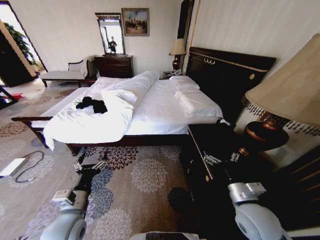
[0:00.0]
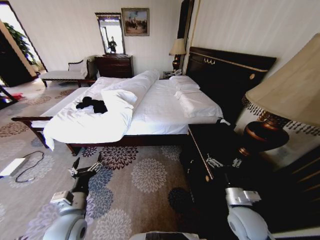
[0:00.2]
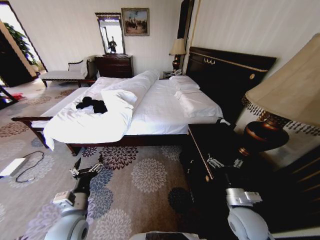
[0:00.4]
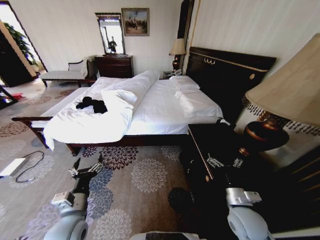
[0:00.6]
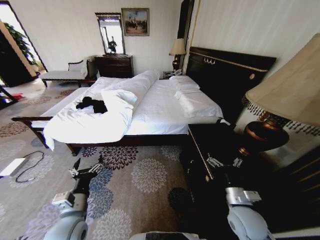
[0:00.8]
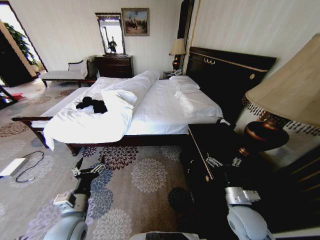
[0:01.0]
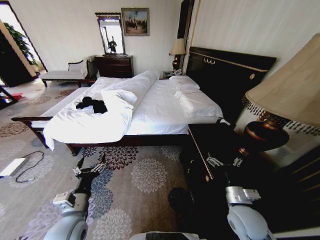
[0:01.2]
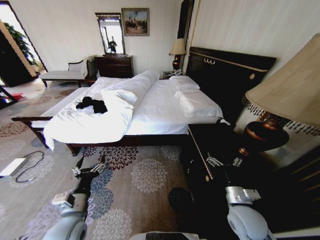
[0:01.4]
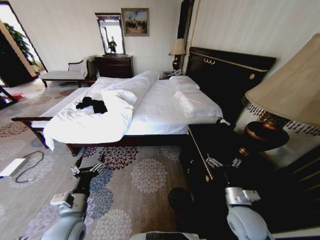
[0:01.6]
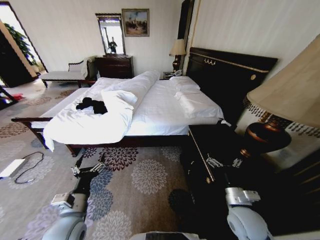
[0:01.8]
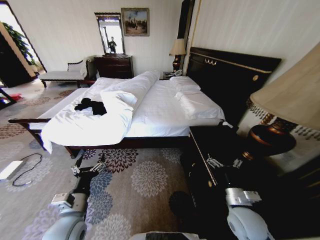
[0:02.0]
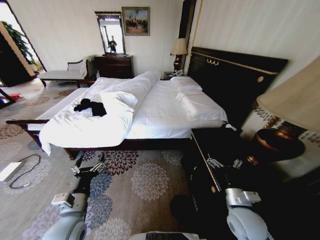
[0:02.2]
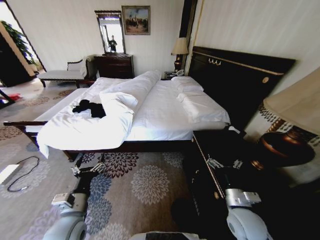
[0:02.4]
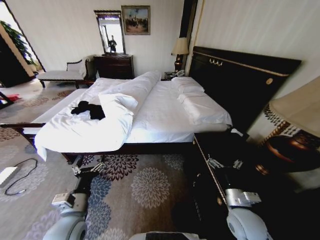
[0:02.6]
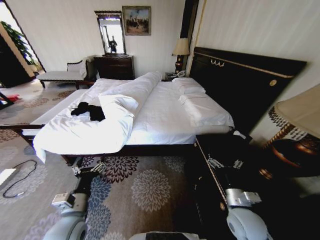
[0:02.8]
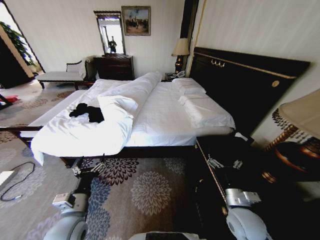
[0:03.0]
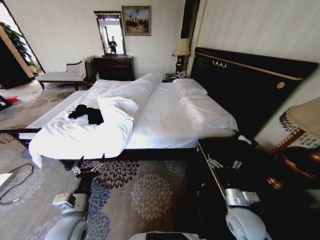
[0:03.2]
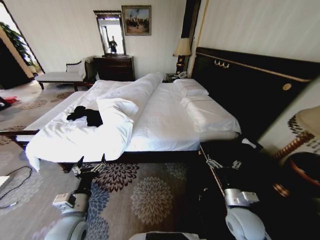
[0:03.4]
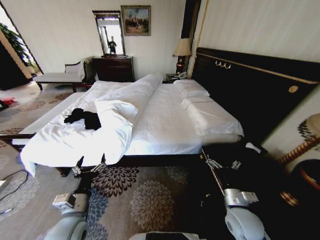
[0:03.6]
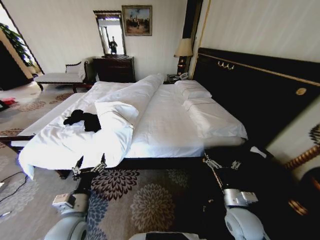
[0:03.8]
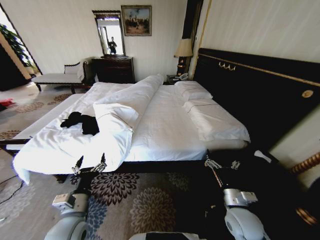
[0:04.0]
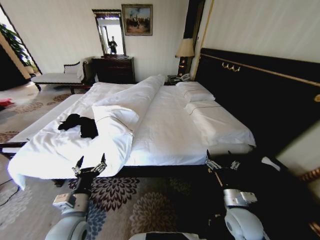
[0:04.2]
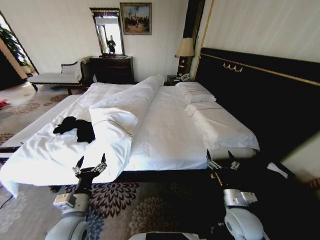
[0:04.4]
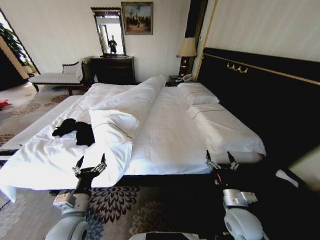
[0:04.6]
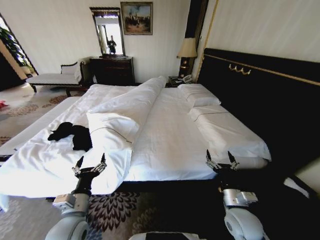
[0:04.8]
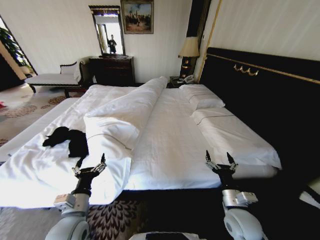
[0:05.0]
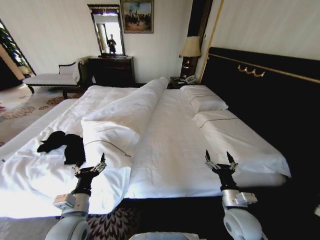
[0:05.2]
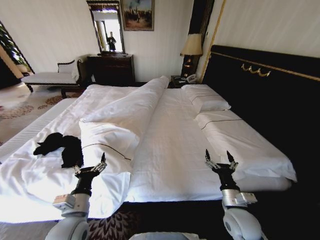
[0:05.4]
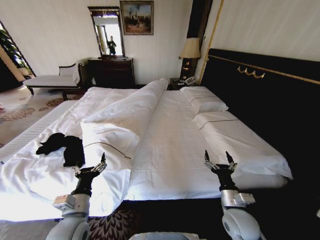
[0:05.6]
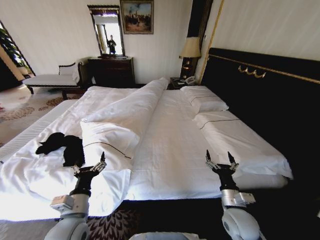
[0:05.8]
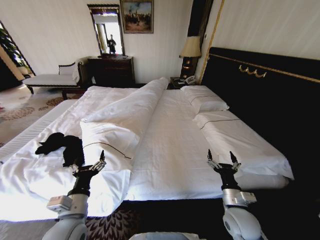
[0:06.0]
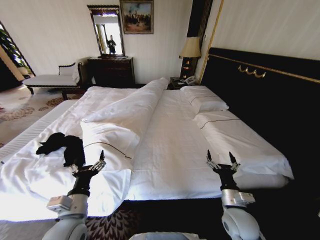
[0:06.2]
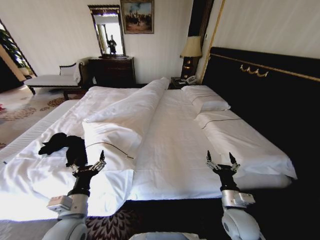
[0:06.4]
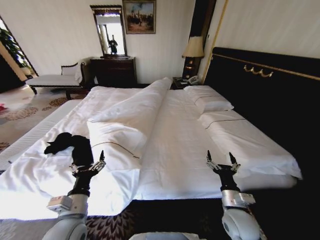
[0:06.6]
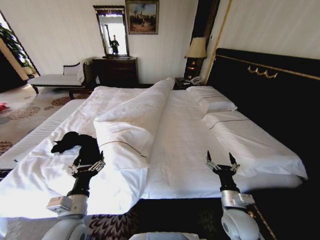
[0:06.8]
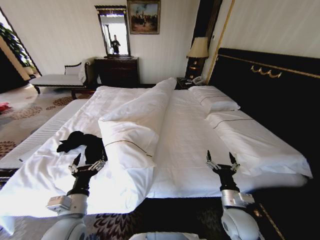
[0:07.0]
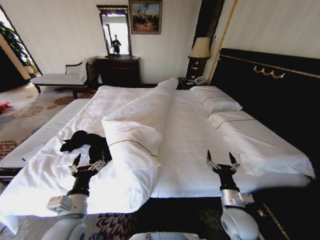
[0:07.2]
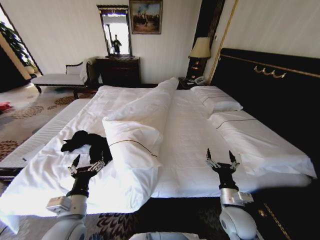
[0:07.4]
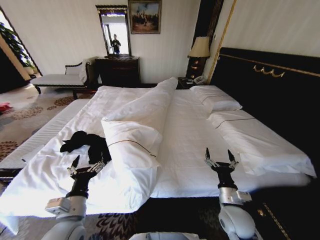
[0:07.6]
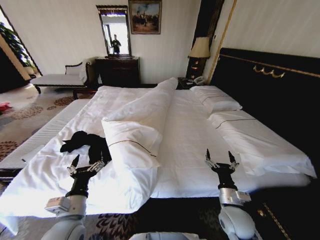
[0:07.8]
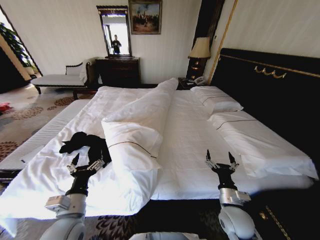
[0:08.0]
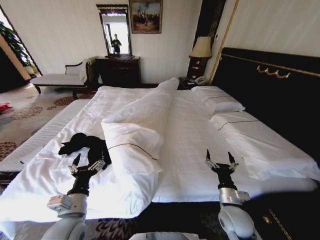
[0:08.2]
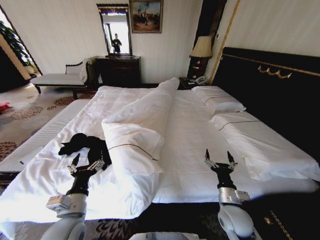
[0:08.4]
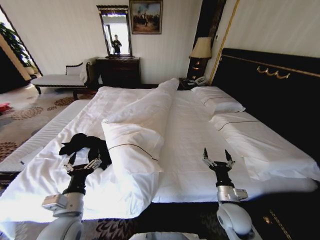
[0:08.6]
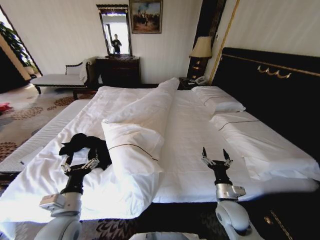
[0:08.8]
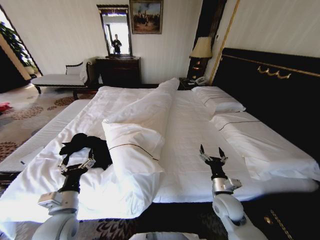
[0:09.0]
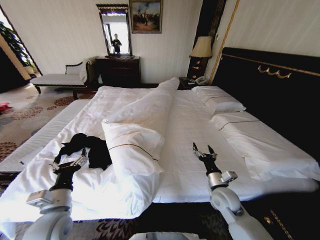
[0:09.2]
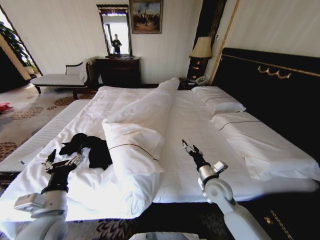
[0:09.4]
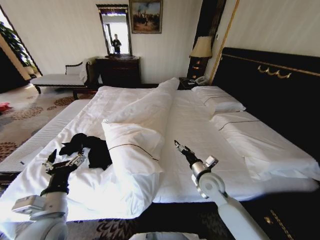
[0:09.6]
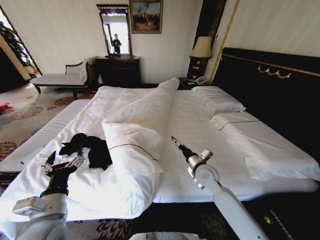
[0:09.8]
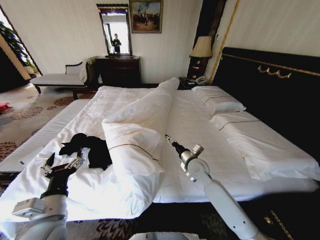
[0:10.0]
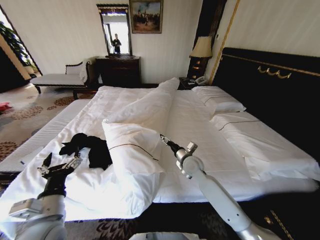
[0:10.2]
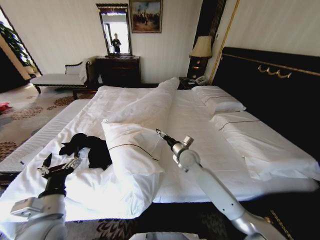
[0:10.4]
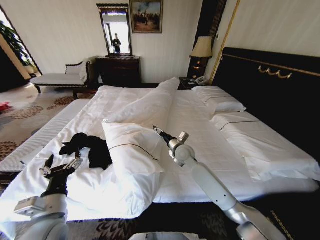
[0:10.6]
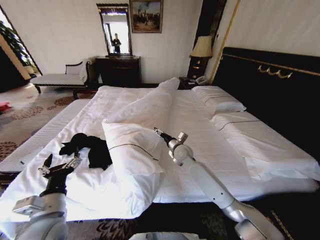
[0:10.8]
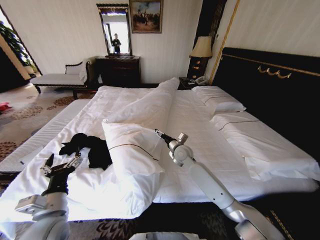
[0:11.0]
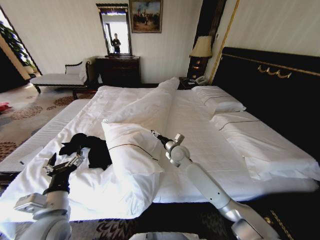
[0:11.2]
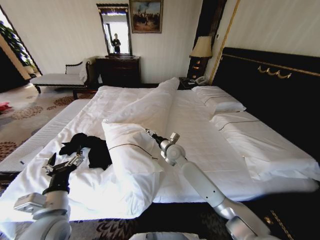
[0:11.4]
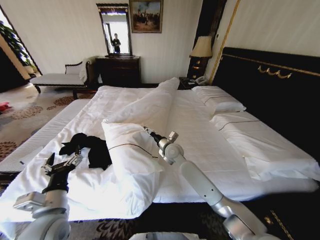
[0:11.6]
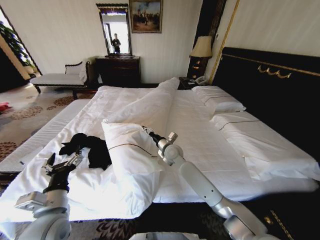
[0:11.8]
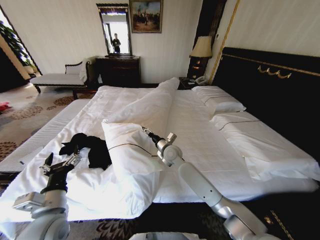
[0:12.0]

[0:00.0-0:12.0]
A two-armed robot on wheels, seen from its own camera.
Task of the whole recording: Fold the clothes on the bed.
0:07.6 to 0:09.0: There are only small adjustments of the grippers.
0:09.0 to 0:10.4: The right gripper is displaced forward and to the left by some 20 cm.
0:10.4 to 0:12.0: The right gripper moves to the left, roughly 10 cm.

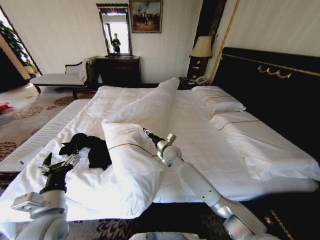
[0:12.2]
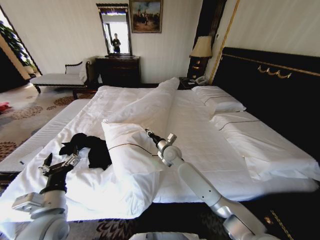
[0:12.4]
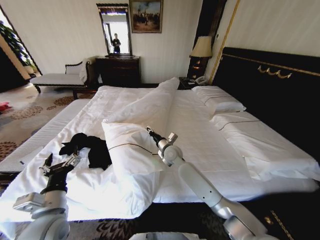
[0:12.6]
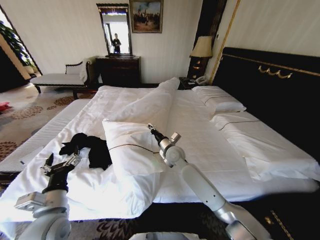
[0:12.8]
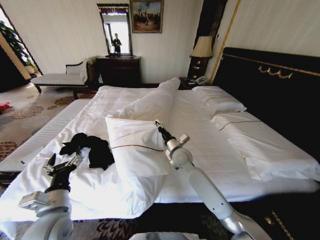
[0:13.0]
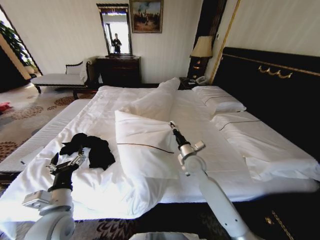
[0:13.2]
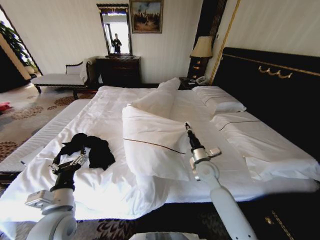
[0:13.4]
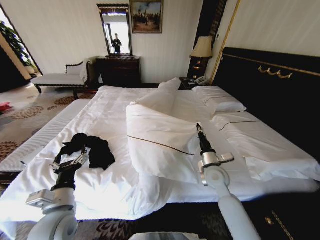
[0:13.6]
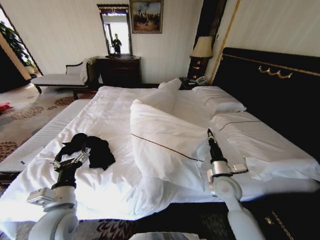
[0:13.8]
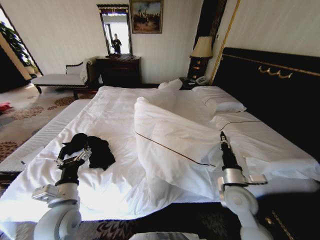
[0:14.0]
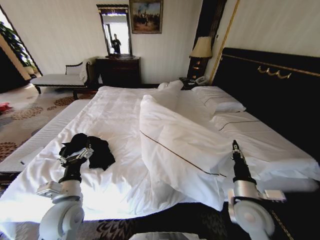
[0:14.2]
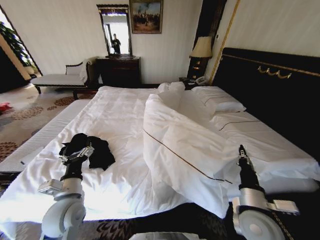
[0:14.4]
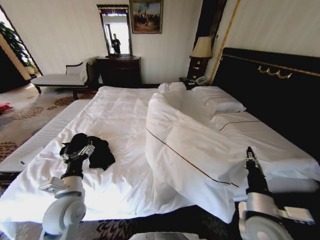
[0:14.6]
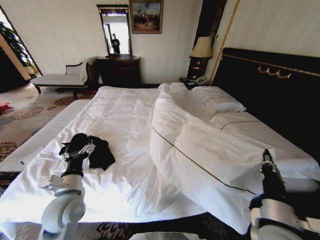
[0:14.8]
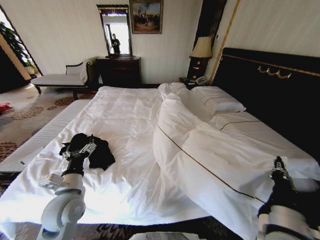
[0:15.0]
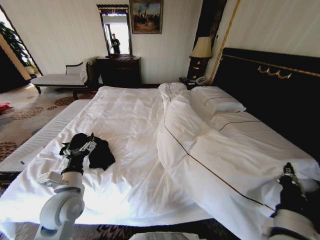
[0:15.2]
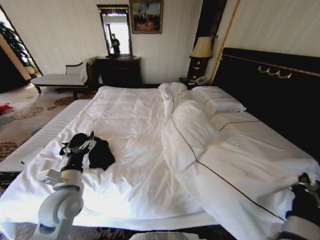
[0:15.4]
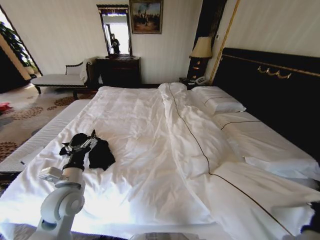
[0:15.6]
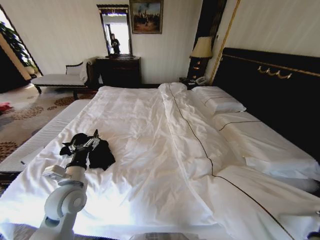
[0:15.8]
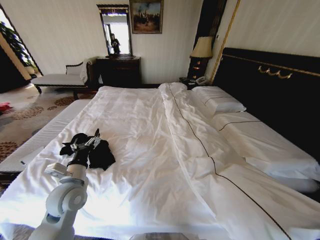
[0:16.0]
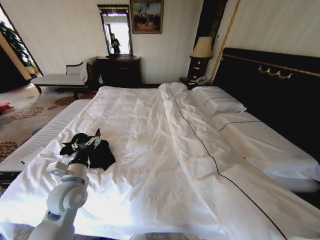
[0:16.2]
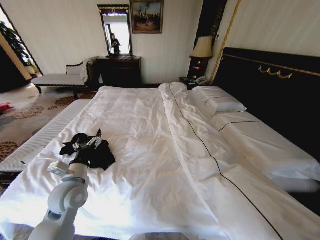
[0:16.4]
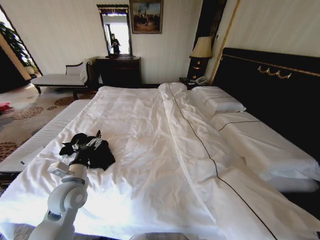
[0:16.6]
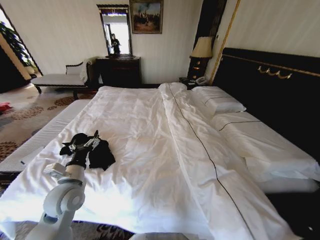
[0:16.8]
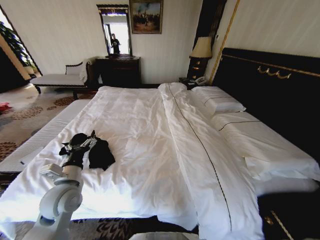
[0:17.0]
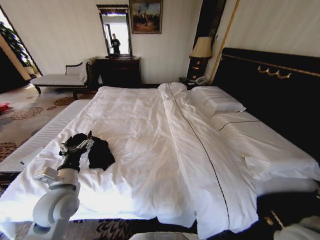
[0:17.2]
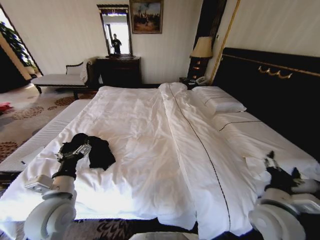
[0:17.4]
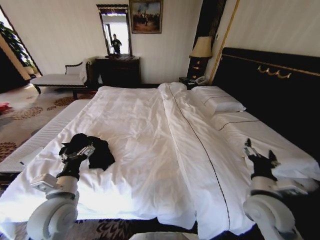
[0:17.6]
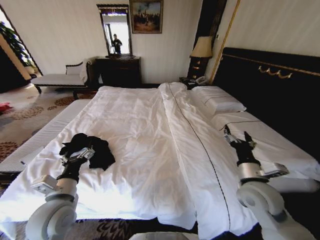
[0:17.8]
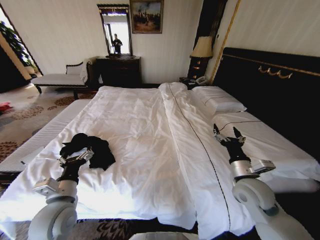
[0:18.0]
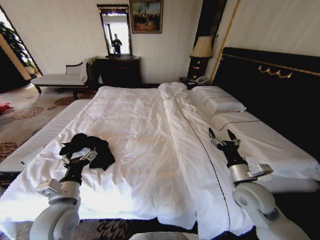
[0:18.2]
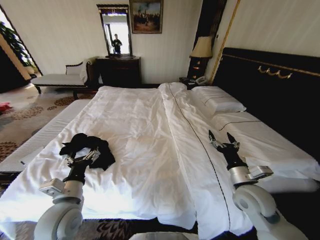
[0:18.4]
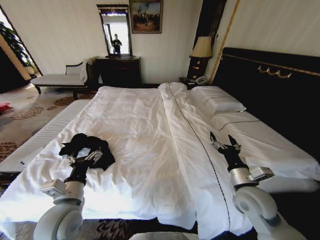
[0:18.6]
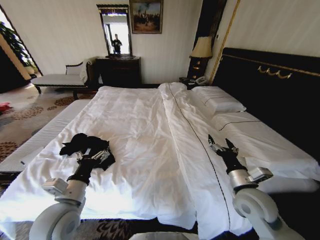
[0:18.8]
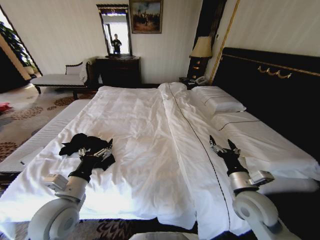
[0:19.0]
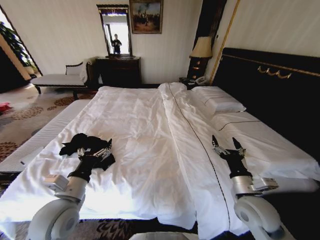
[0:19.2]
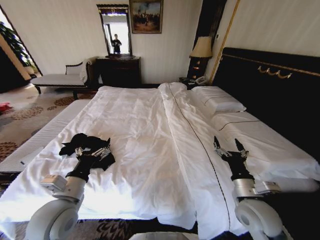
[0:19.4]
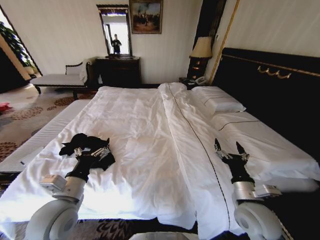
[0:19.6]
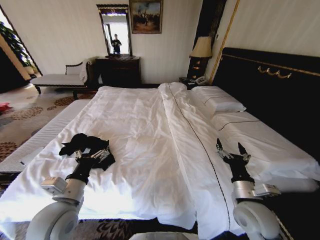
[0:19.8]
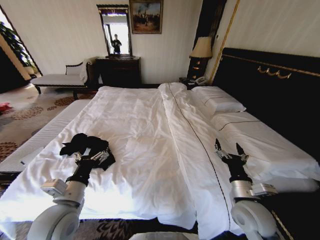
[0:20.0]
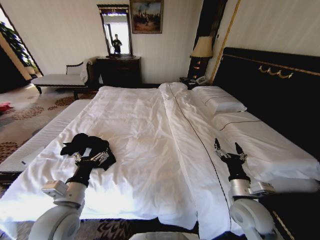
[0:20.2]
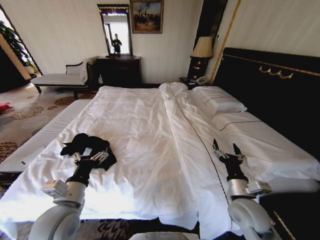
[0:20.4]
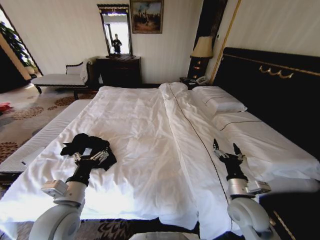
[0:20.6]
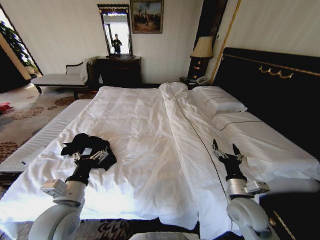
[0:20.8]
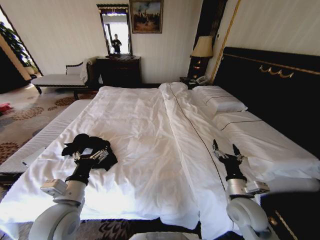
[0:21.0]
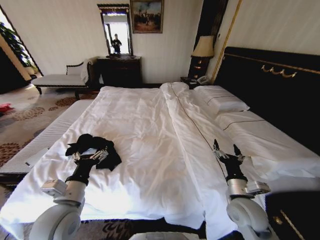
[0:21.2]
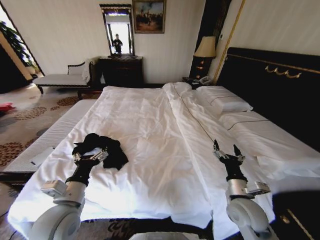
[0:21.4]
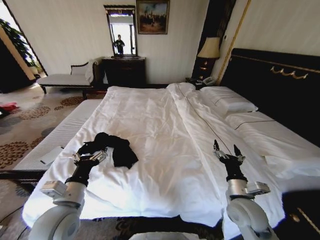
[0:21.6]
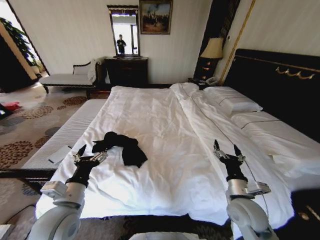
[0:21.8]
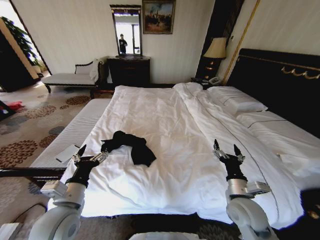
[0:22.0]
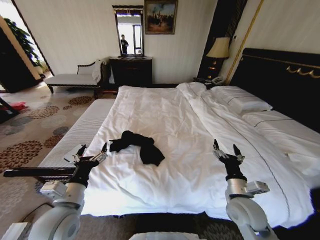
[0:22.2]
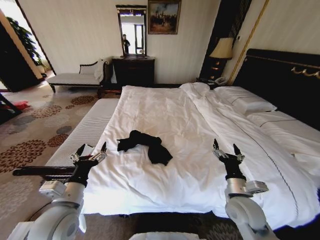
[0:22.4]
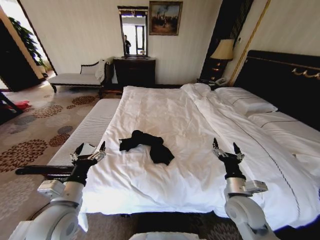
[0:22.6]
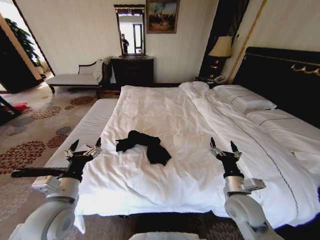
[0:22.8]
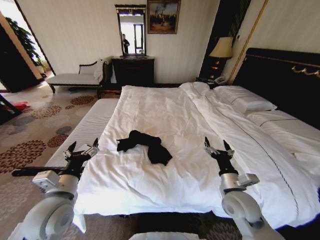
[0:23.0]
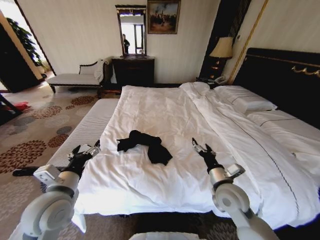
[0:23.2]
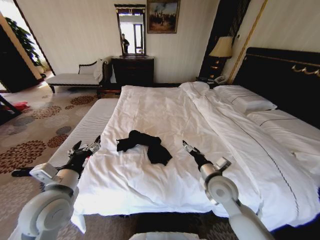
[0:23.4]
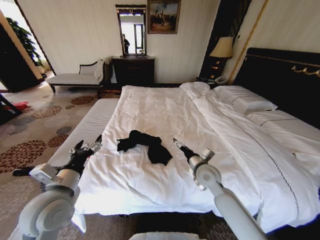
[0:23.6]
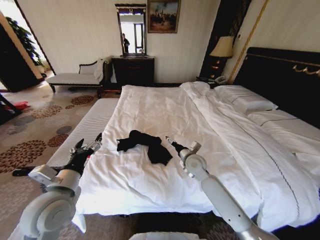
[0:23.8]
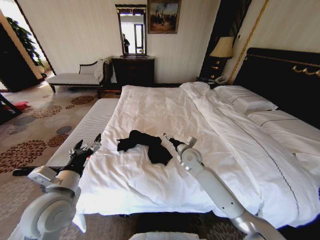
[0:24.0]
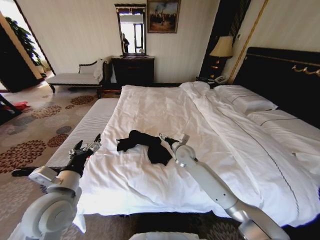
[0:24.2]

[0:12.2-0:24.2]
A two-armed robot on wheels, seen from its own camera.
Task of the whole recording: Fold the clothes on the bed.
0:12.2 to 0:13.8: The right gripper heads to the right and backward, covering some 25 cm, and closes.
0:13.8 to 0:15.2: The right gripper is displaced backward by about 20 cm.
0:15.2 to 0:16.6: The right gripper is displaced downward by roughly 5 cm.
0:16.6 to 0:18.2: The right gripper shifts some 15 cm forward, and opens, while the left gripper is displaced backward by roughly 5 cm.
0:18.2 to 0:19.8: The right gripper is displaced backward by approximately 5 cm.
0:19.8 to 0:21.2: The grippers make only small movements.
0:22.6 to 0:24.2: The right gripper moves forward and to the left, some 25 cm.
